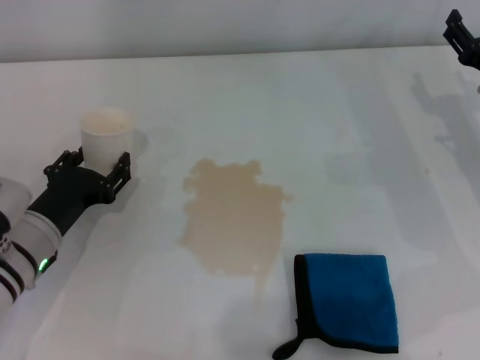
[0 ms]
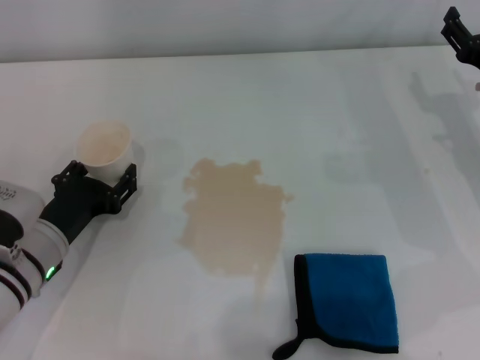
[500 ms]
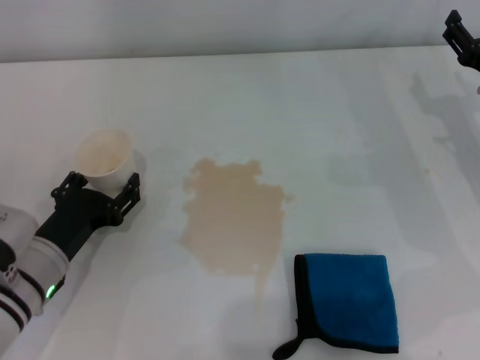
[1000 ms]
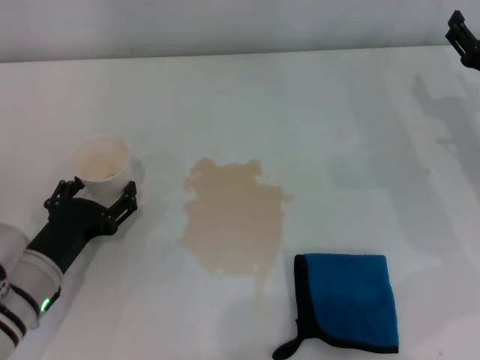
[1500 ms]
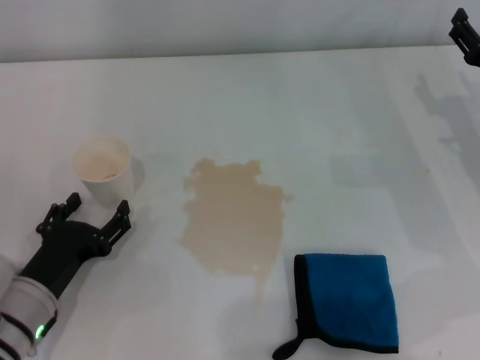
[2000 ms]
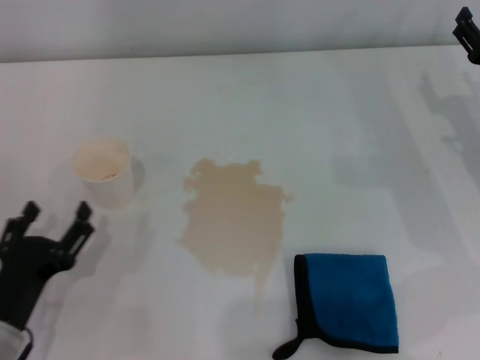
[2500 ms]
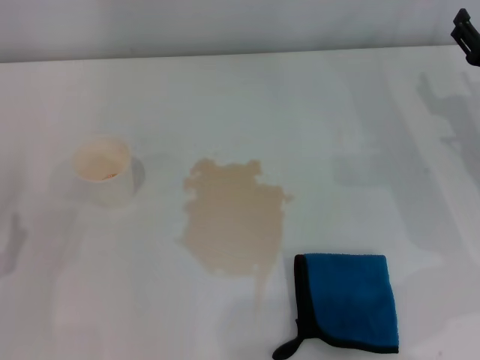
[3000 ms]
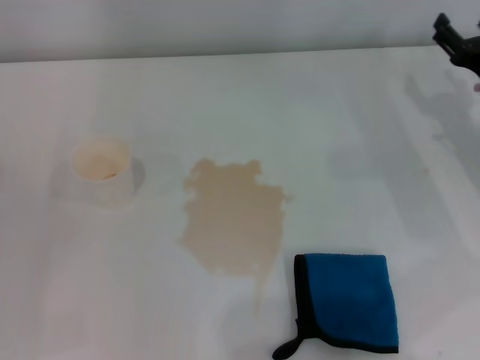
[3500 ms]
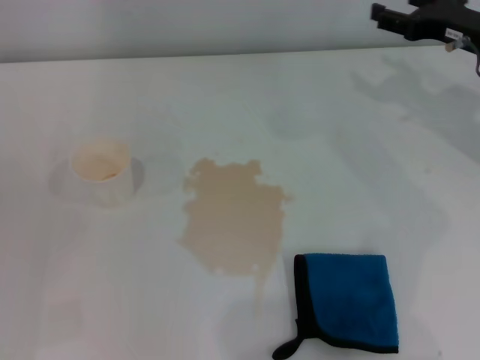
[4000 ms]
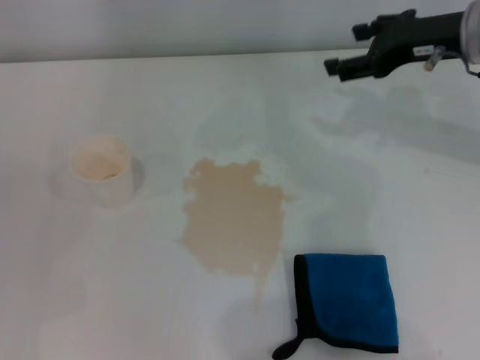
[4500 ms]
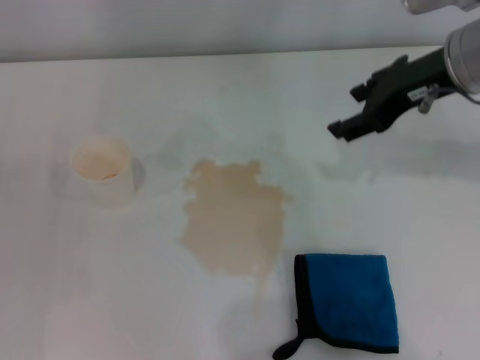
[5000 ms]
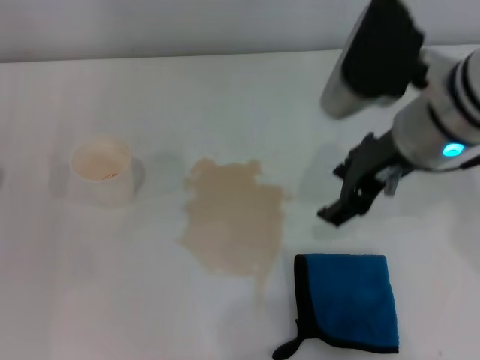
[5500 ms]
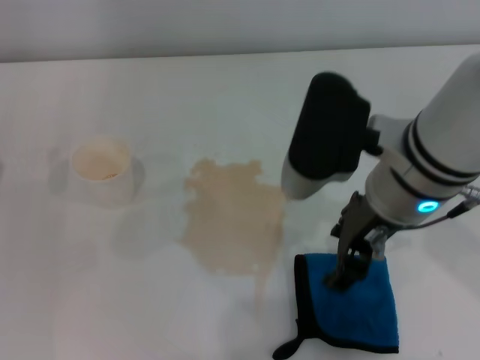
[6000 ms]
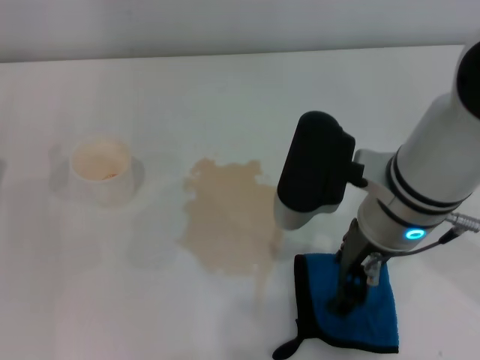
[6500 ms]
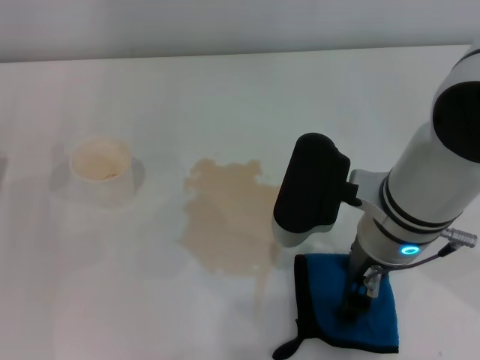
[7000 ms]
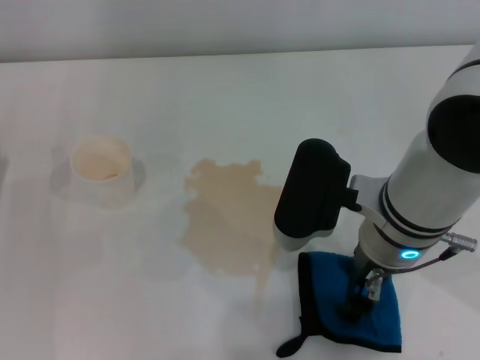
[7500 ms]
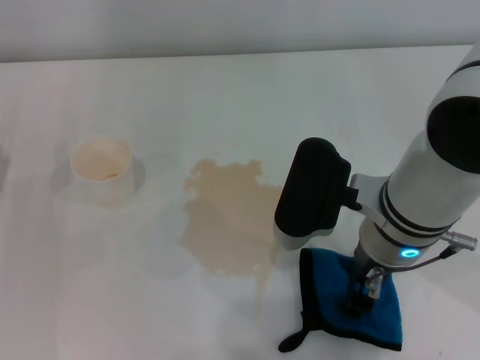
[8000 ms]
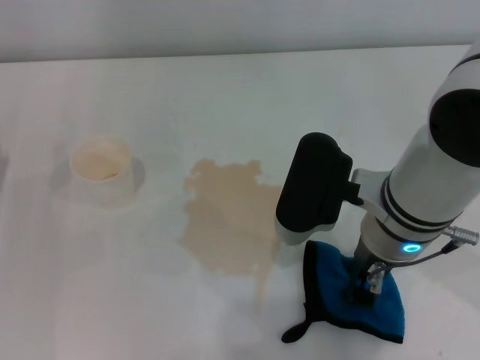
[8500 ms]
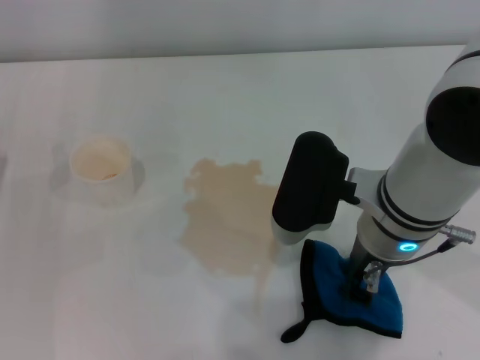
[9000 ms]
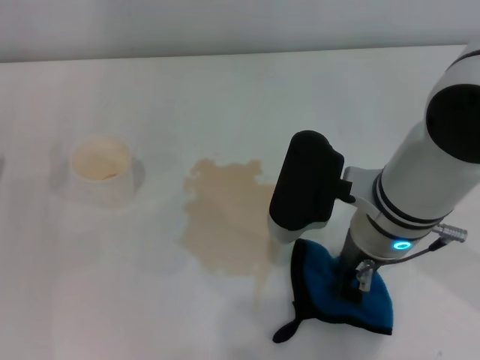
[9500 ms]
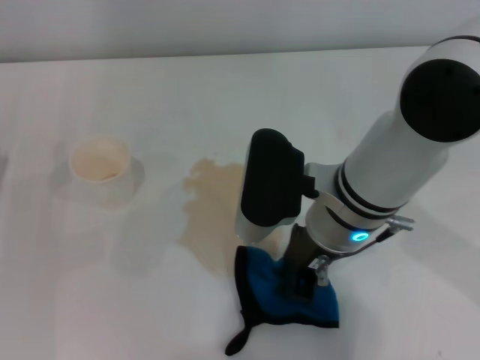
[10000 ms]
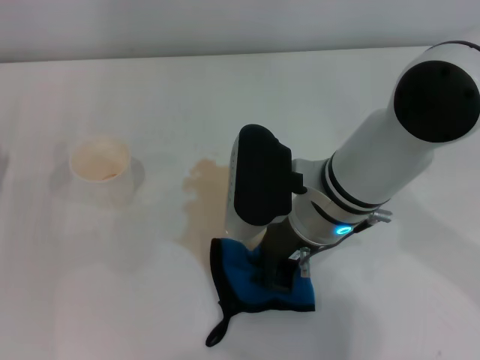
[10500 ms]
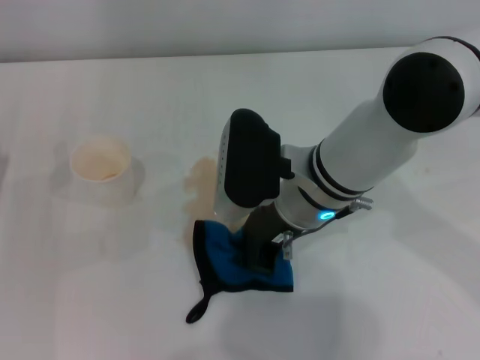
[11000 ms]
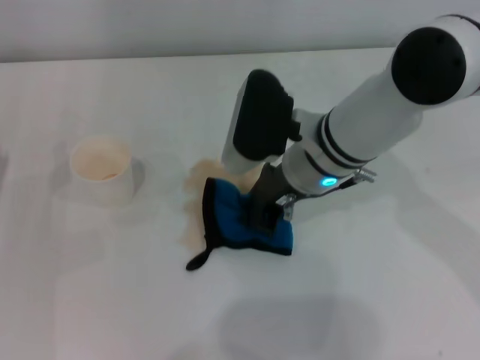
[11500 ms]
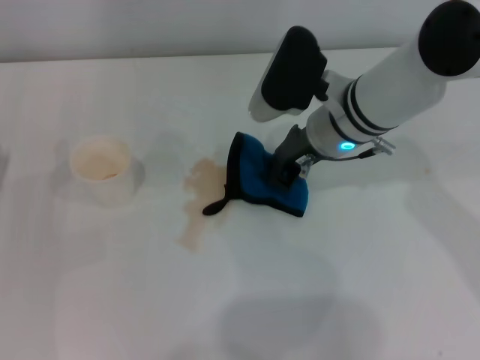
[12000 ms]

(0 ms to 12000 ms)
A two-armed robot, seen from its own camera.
Step, 1500 ms - 8500 ms: Grasp the rag with the right gripper.
0 ms - 2000 ms: The left gripper goes roughly 5 cm backward, and opens up.
2000 ms - 4000 ms: The left gripper travels to the left by about 10 cm. Meanwhile the right gripper goes about 10 cm upward and forward.
4000 ms - 6000 ms: The right gripper goes some 20 cm to the left and backward. The left gripper goes some 5 cm forward.
6000 ms - 8000 ms: The right gripper heads downward, covering some 5 cm.
8000 ms - 10000 ms: The right gripper closes.
10000 ms - 12000 ms: The right gripper moves forward, roughly 10 cm.

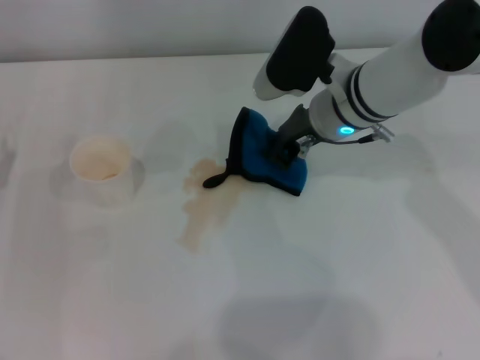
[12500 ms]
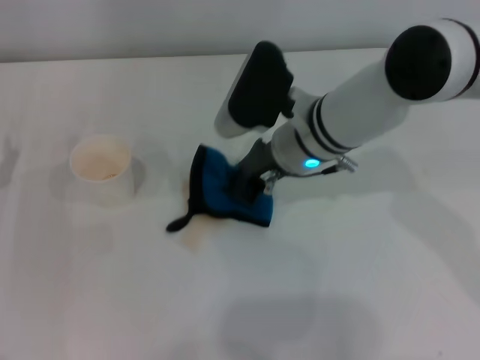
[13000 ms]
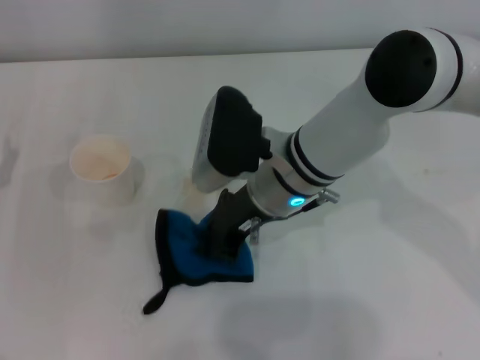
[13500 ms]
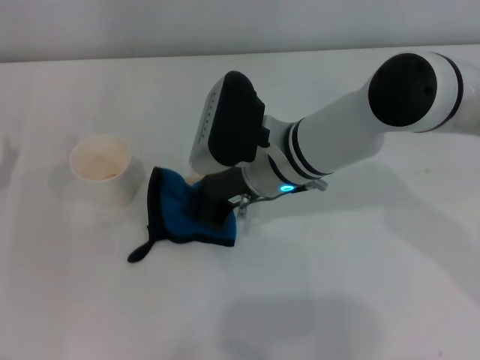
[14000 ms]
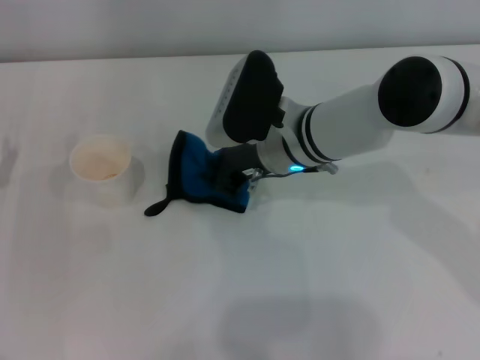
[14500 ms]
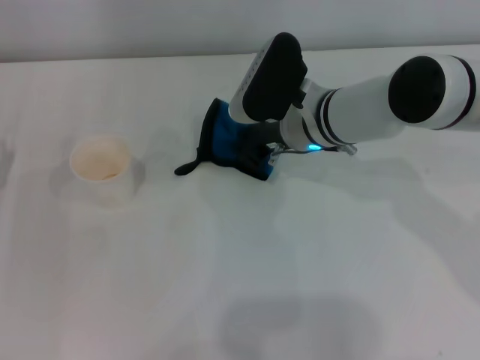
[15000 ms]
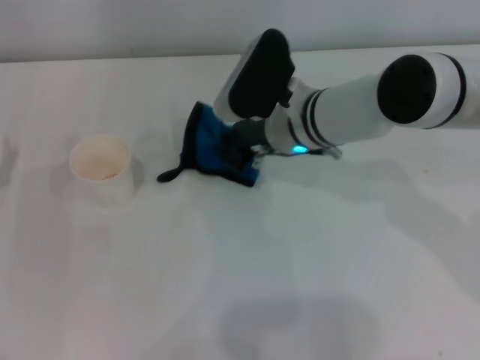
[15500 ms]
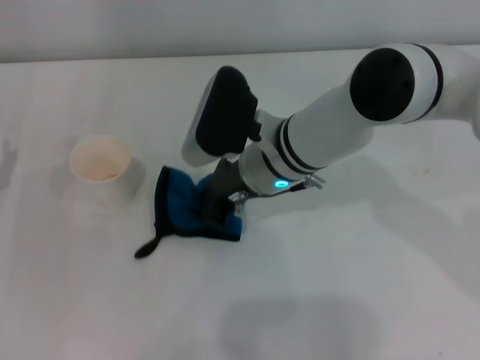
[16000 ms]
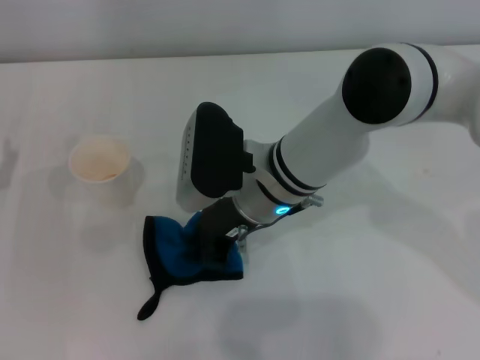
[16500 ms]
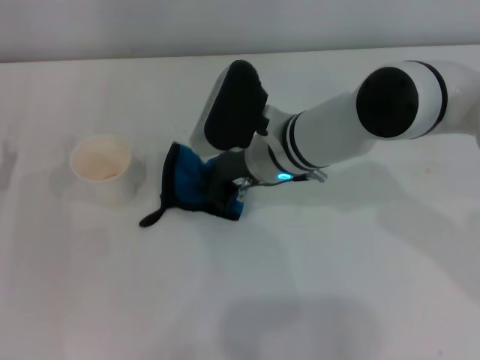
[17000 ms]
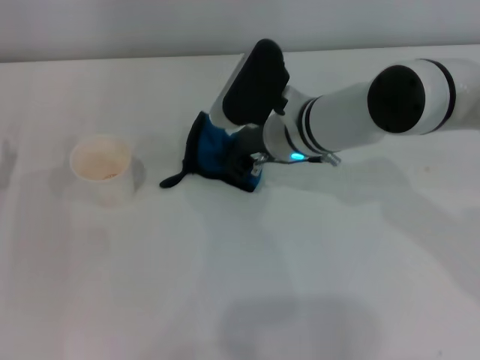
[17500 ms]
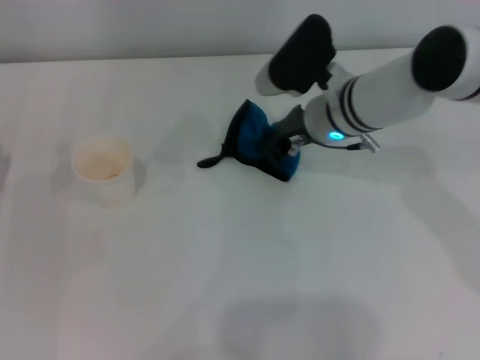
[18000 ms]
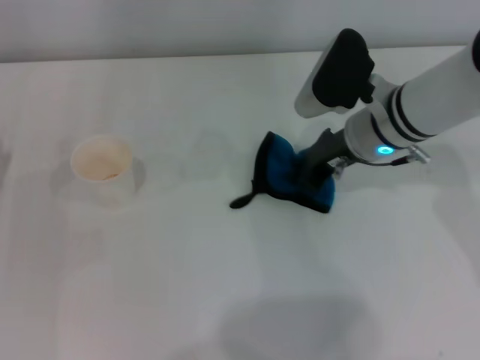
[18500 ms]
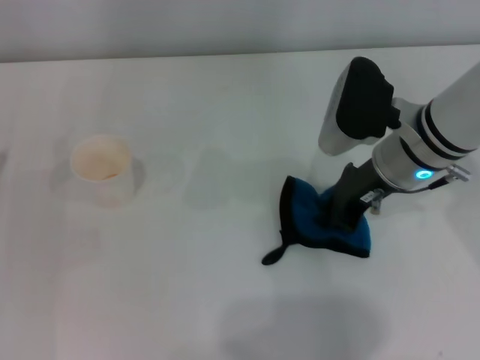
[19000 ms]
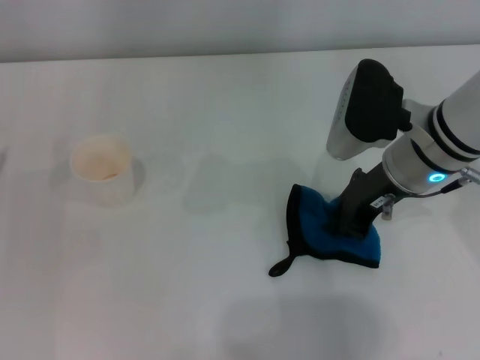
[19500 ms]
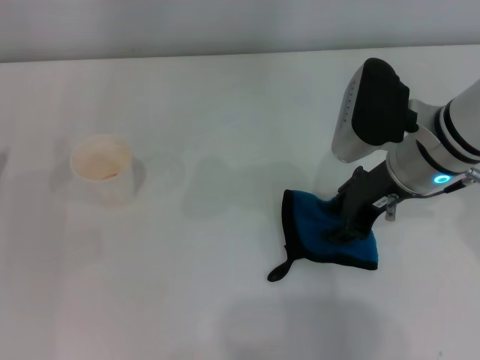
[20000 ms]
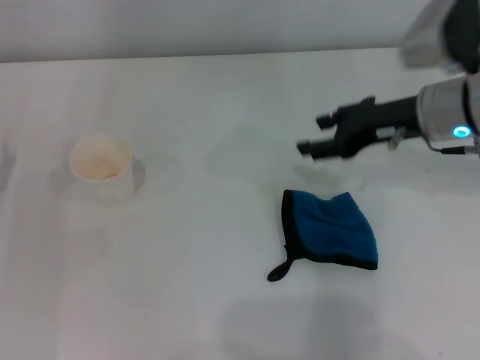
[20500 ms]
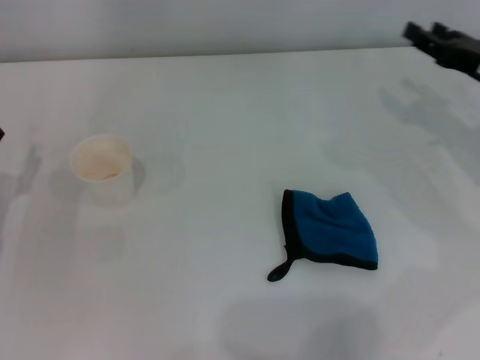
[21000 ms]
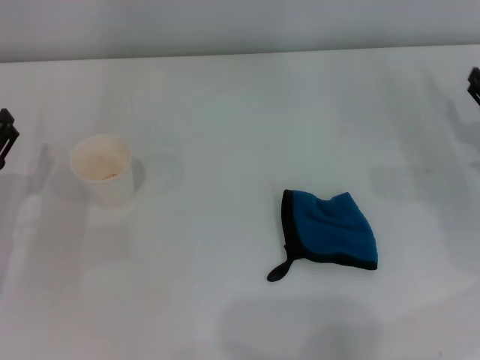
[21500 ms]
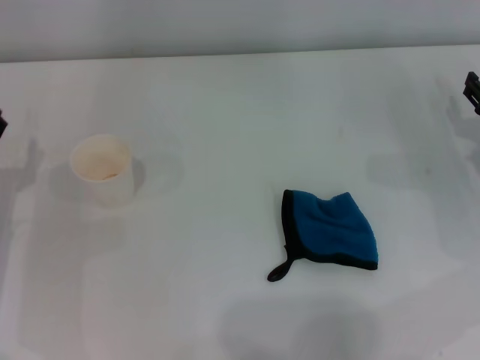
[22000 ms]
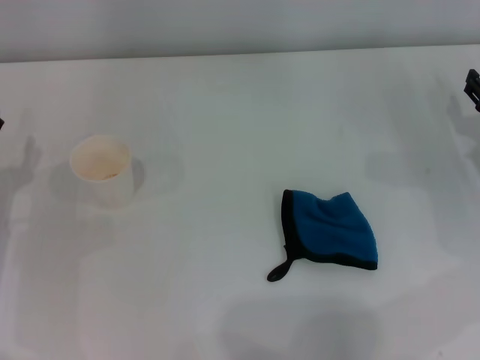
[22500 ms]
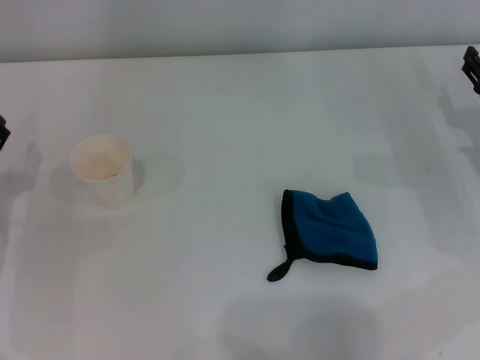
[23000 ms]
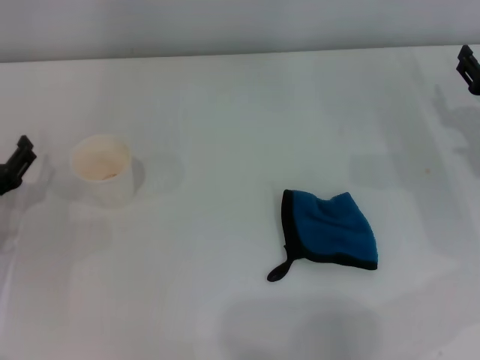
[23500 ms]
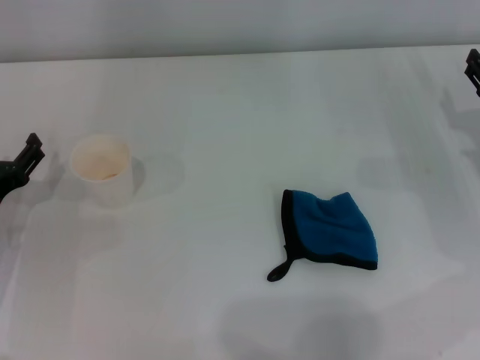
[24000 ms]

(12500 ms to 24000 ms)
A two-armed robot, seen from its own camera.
Step, 12500 ms - 18500 ms: Wipe the stains off the table with the right gripper.
14500 ms - 16500 ms: The right gripper changes place by some 5 cm.
16500 ms - 18500 ms: The right gripper moves to the right, roughly 10 cm.
18500 ms - 20000 ms: The right gripper ends up roughly 5 cm from where it was.
20000 ms - 22000 ms: The right gripper heads to the right and downward, covering about 20 cm, and opens.
22000 ms - 24000 ms: There are only small adjustments of the grippers.
